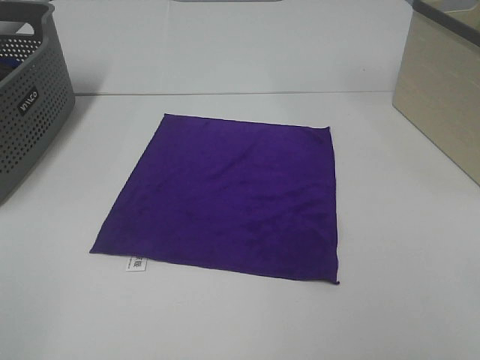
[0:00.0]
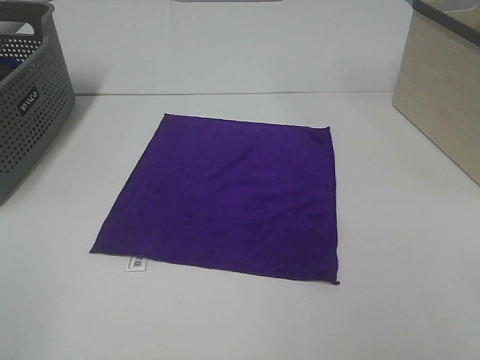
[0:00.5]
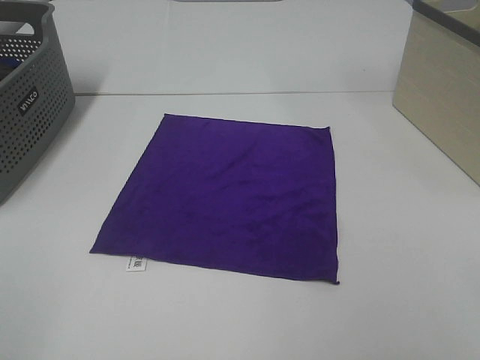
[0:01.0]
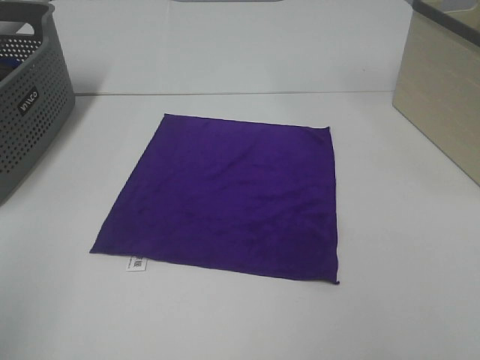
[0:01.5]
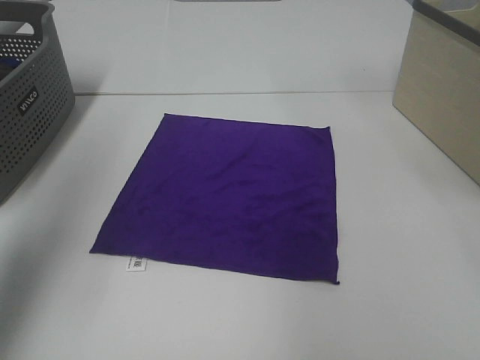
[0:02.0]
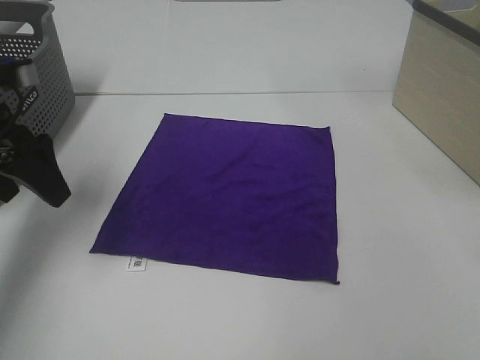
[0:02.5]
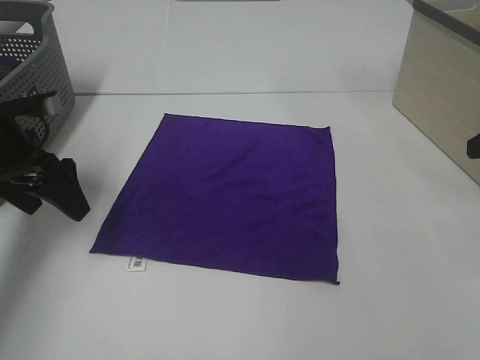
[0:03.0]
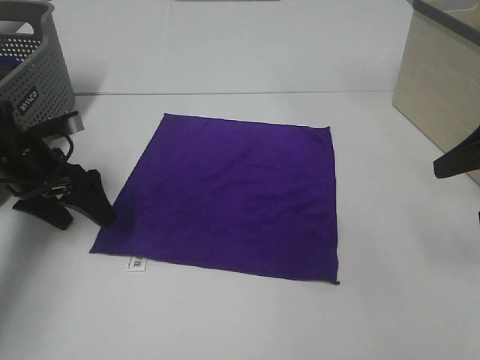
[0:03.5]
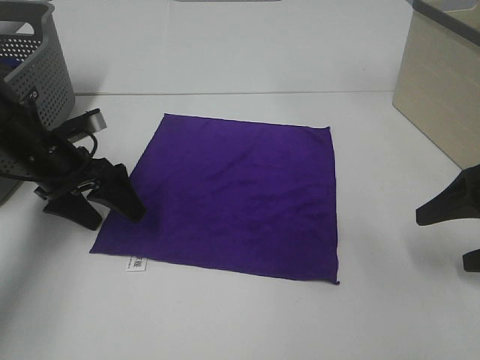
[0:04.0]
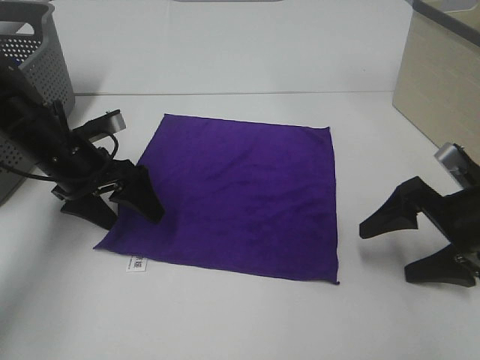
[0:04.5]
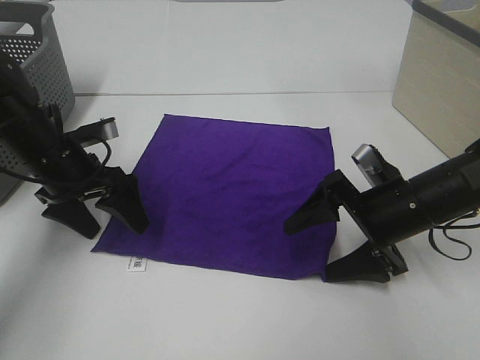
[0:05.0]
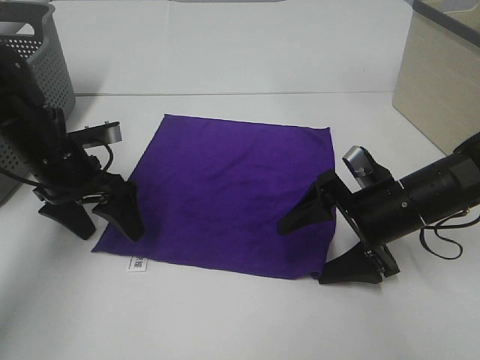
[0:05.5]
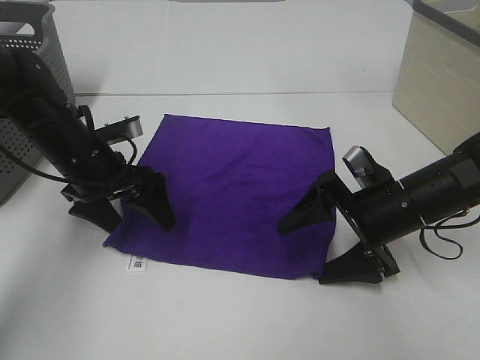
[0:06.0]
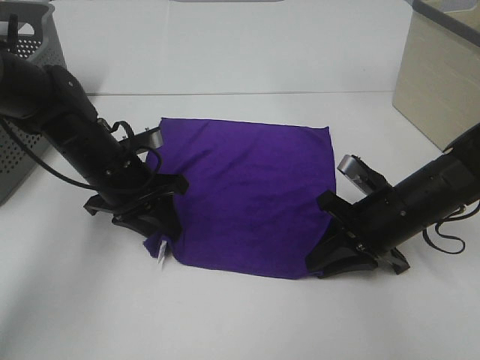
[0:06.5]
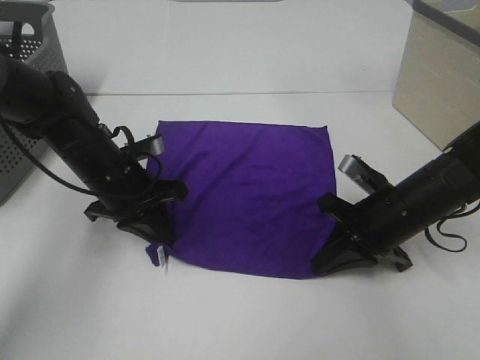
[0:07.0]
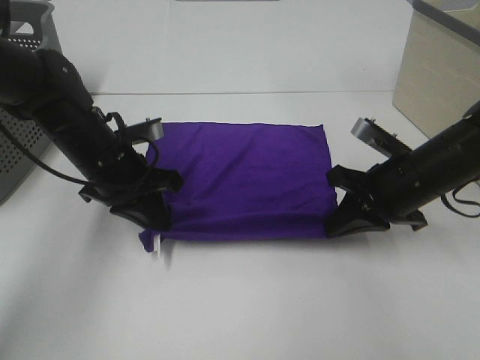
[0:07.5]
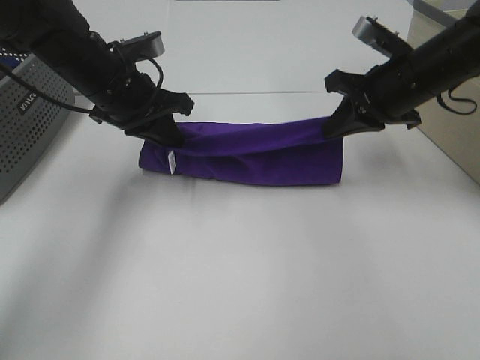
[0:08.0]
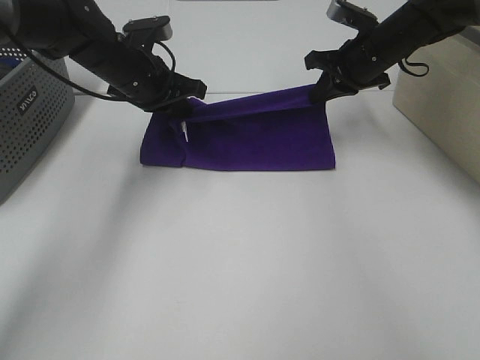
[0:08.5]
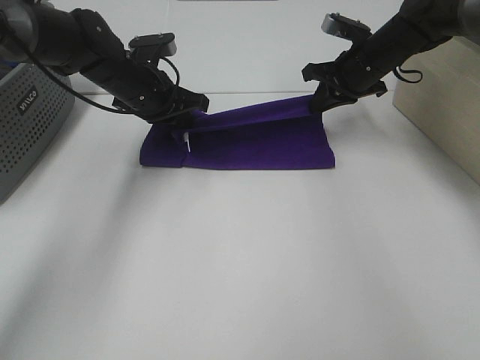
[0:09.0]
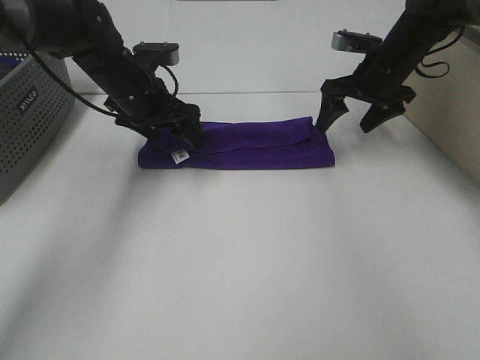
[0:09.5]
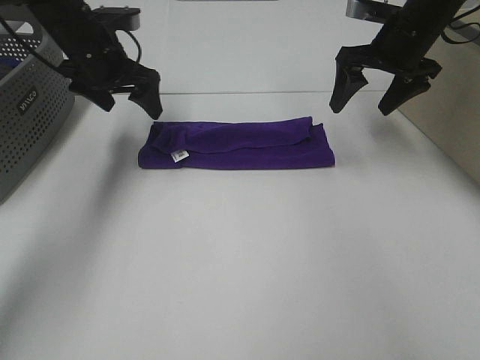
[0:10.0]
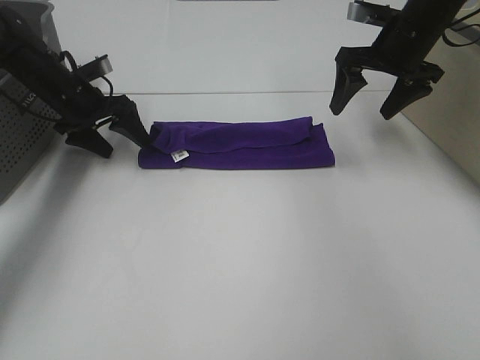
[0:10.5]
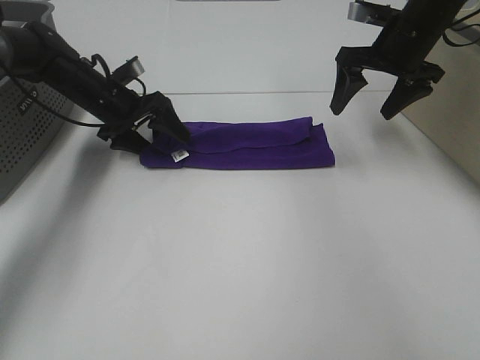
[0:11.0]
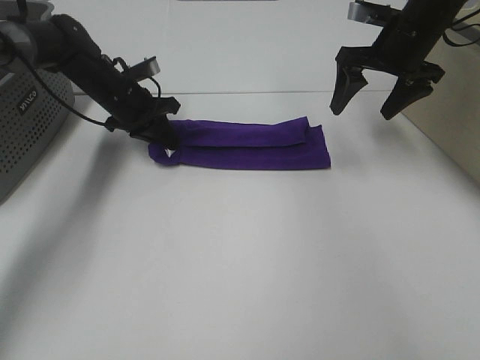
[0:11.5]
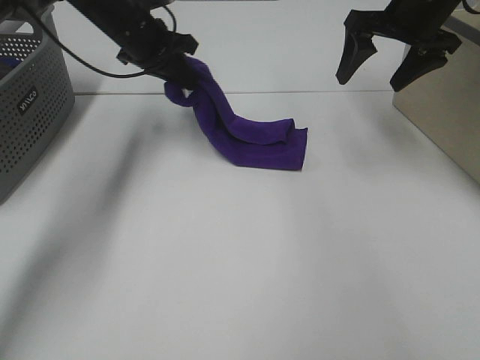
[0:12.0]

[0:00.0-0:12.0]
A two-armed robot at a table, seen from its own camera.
Task of the whole recording: Fold towels.
Step, 0:00.0 to 0:06.5: Left hand: grab the bottom left corner of purple towel.
Step, 0:00.0 to 0:06.5: Right hand: grab the bottom right corner of purple towel.
Step, 0:07.0 to 0:09.0: Left hand: fold the purple towel up.
Step, 0:07.0 to 0:09.0: Right hand: fold the purple towel up.
0:00.0 to 0:02.0: The left gripper goes some 25 cm forward.
0:02.0 to 0:04.0: The right gripper travels downward by approximately 20 cm. Meanwhile the left gripper is displaced downward and forward by roughly 25 cm.
0:04.0 to 0:06.0: The left gripper shifts by roughly 5 cm. The right gripper moves to the left and downward, roughly 15 cm.
0:06.0 to 0:08.0: The right gripper travels upward and forward by approximately 15 cm, and closes its fingers. The left gripper goes roughly 10 cm upward, and closes.
0:08.0 to 0:10.0: The right gripper shifts approximately 10 cm forward, and opens. Meanwhile the left gripper travels forward and to the left by about 10 cm, and opens up.
0:10.0 to 0:12.0: The left gripper moves to the right, some 5 cm, and closes. The right gripper heads upward, covering some 5 cm.

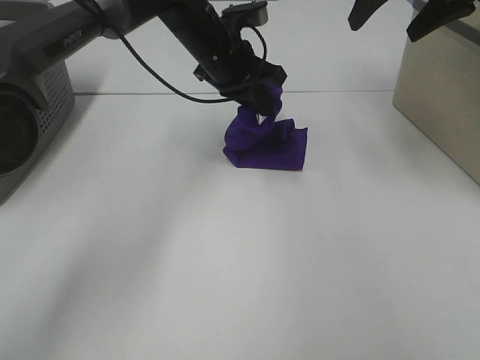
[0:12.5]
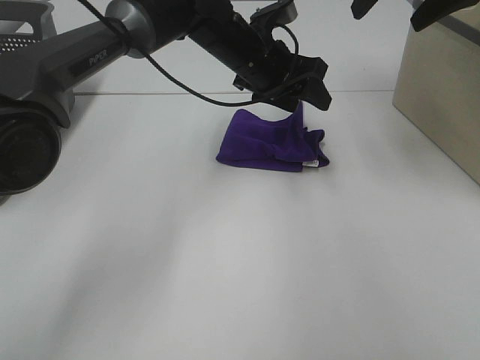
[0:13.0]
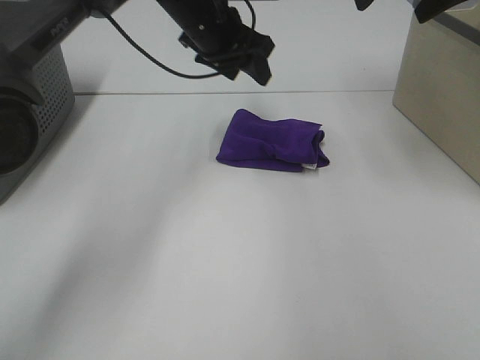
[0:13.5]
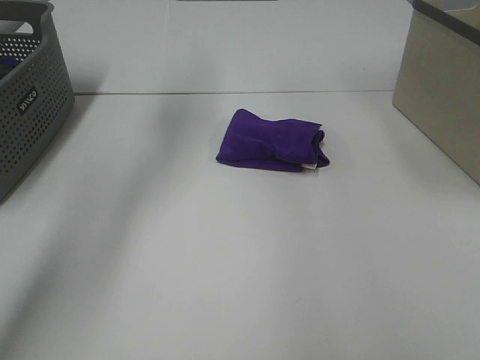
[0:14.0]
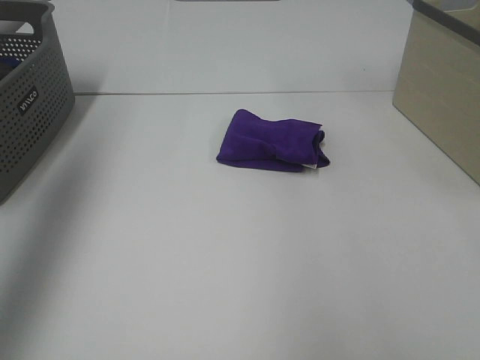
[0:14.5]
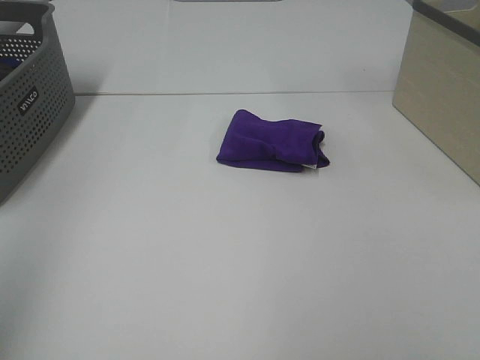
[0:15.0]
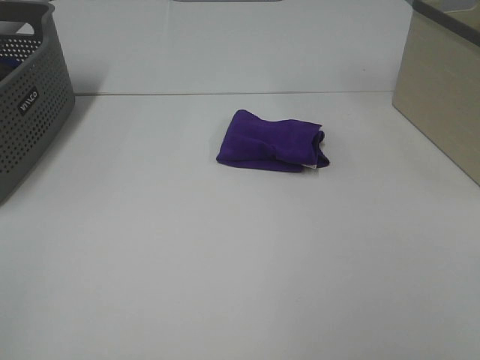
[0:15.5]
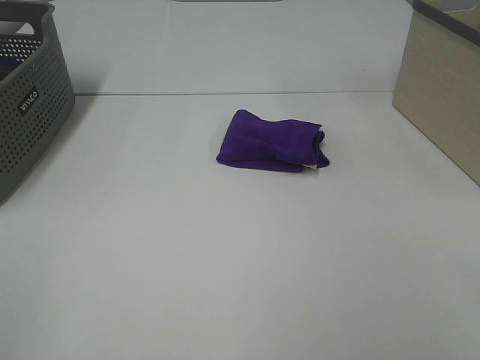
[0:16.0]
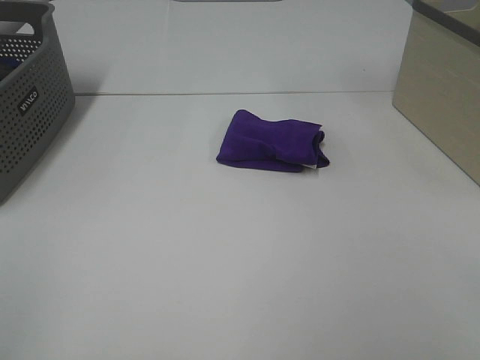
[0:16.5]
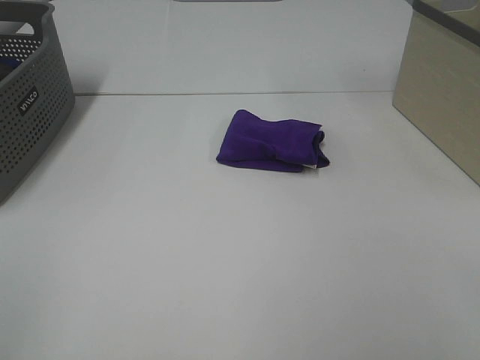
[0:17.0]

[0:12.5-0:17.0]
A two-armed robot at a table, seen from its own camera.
Task of the whole recording: Fold towels.
0:12.5 to 0:14.5: The left gripper goes about 40 cm to the left, upward and backward, and opens its fingers; the right gripper shifts approximately 25 cm backward.
0:14.5 to 0:17.0: The left gripper is displaced backward and downward by some 30 cm.
